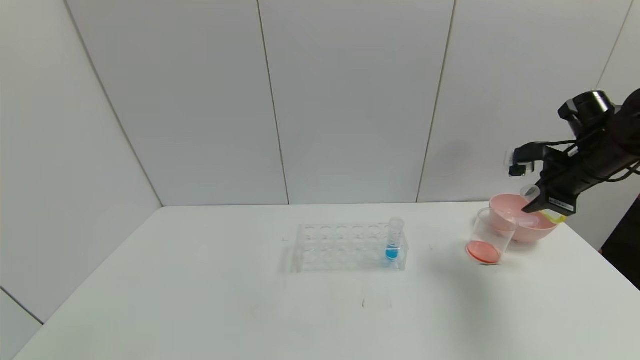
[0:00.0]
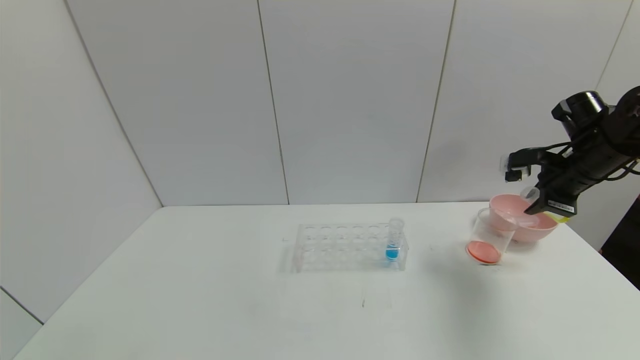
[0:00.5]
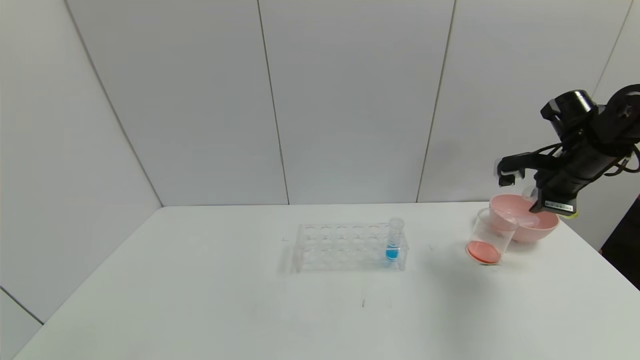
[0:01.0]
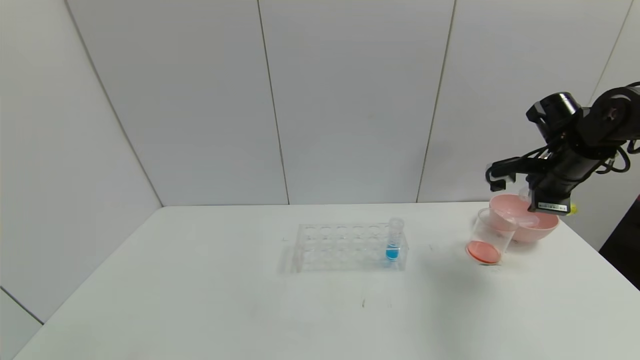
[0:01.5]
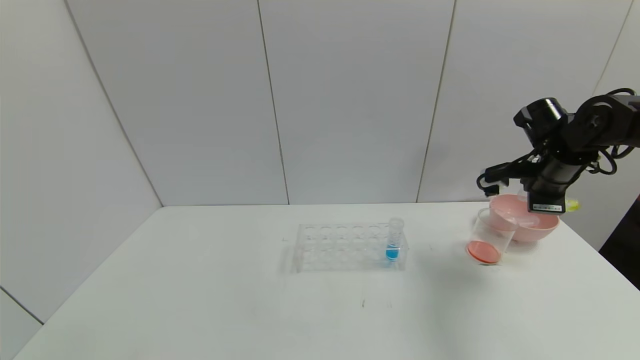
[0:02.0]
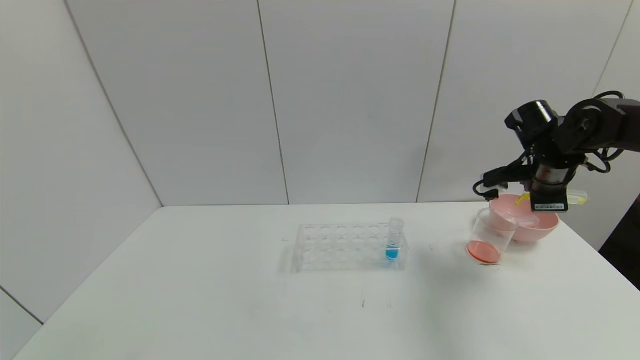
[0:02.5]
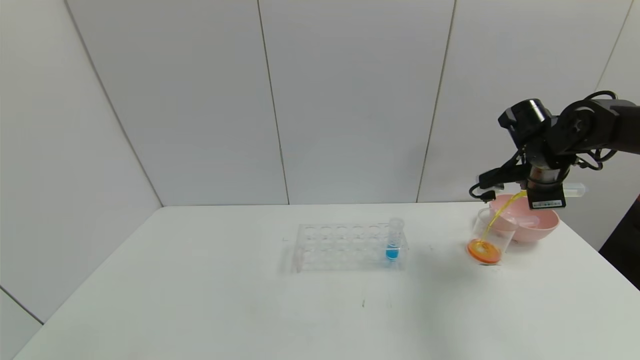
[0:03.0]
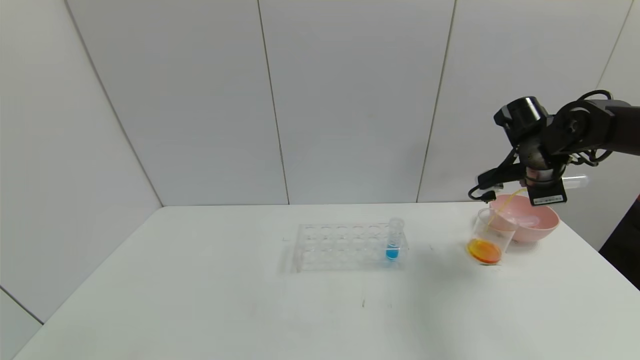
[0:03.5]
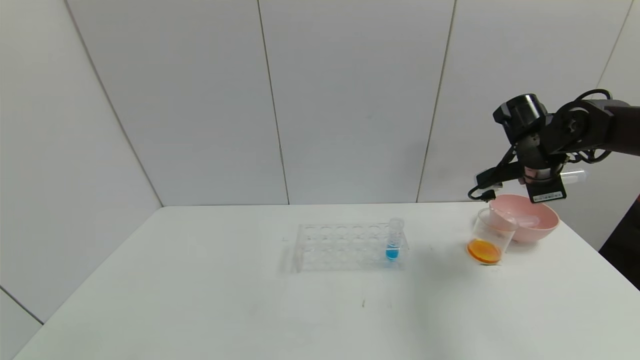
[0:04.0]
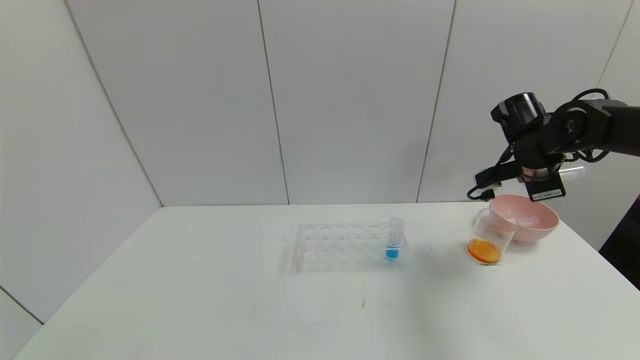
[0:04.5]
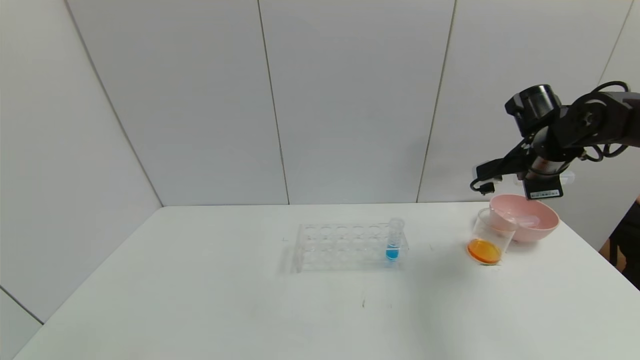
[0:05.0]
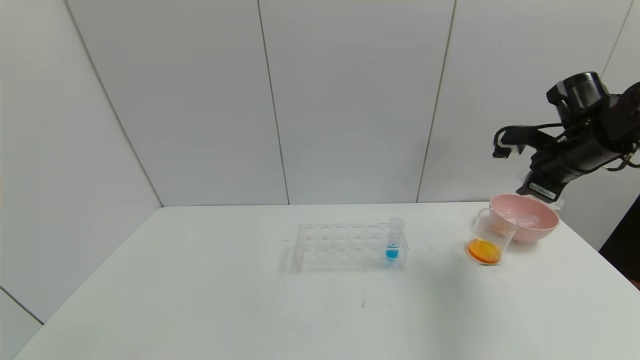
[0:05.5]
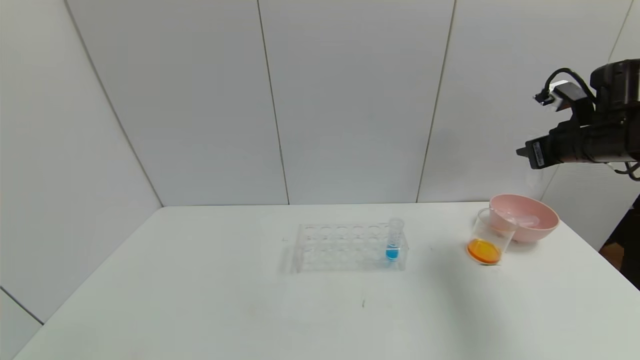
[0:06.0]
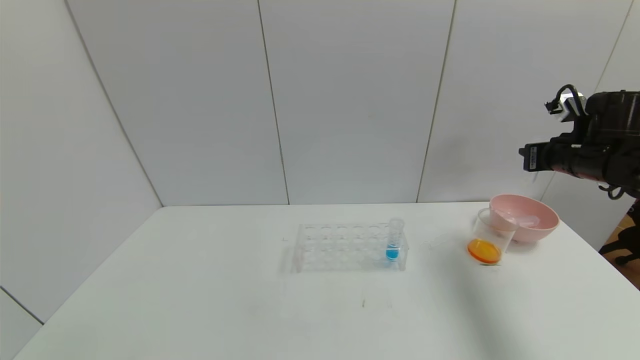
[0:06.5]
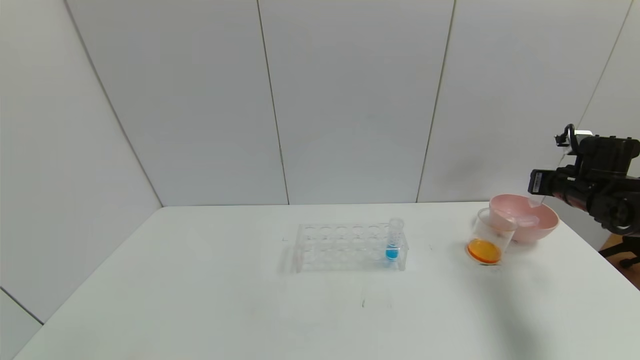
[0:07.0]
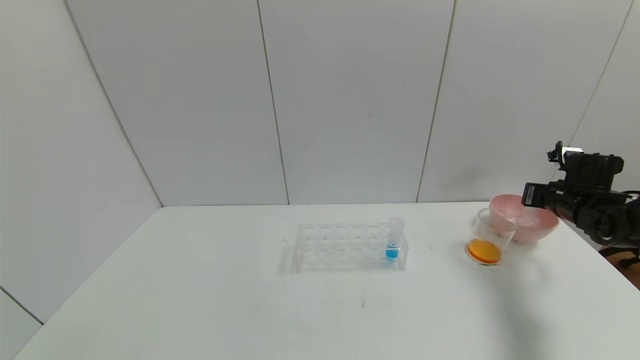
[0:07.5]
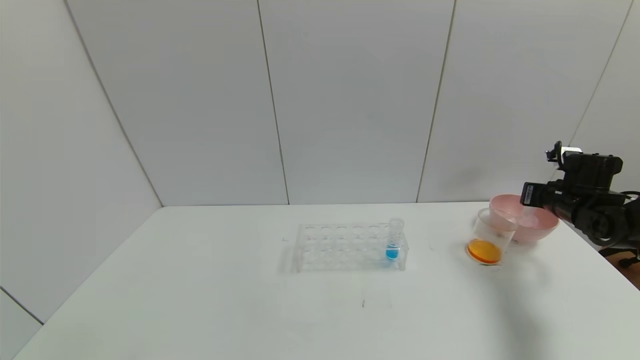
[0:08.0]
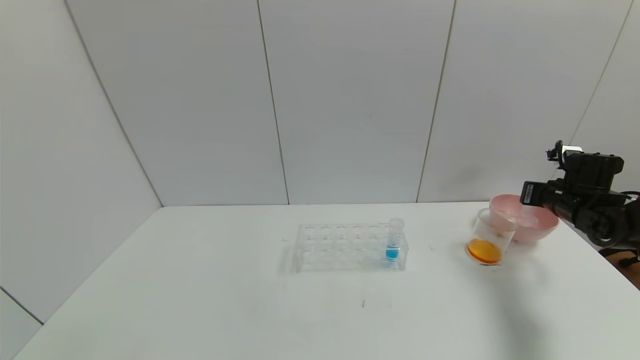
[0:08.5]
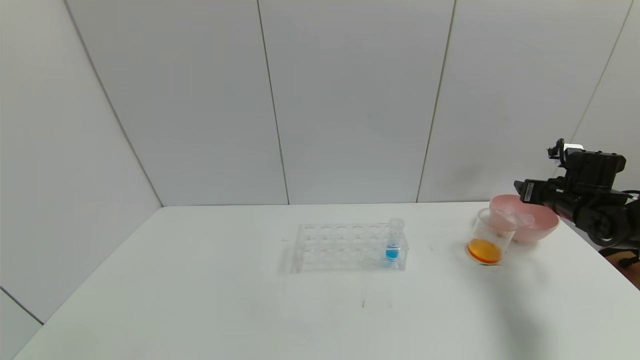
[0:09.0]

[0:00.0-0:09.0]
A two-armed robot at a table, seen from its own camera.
Task of the whole recording: pick up the test tube with yellow pigment and the test tube with red pigment by grippers and pour them into the beaker.
Step, 0:00.0 to 0:04.0: Pour the yellow reagent into the graduated cylinder with the right gripper.
Step, 0:04.5 to 0:08.5: Place the test tube into the bowl with the right gripper.
0:04.5 to 0:07.0: The right gripper moves to the right and downward, some 15 cm.
0:07.0 to 0:09.0: The right gripper opens.

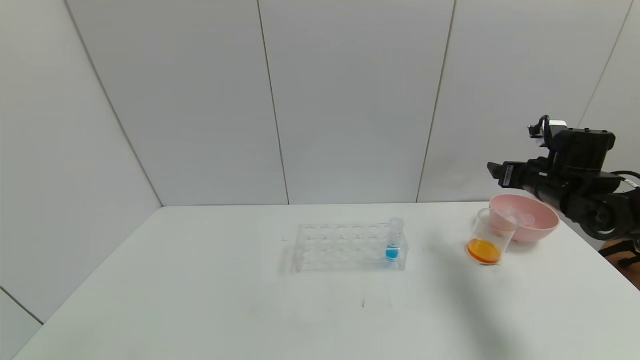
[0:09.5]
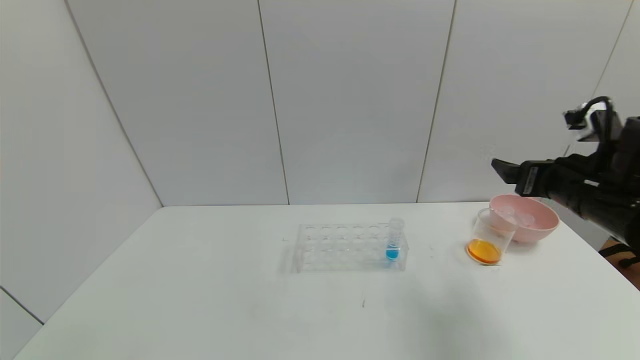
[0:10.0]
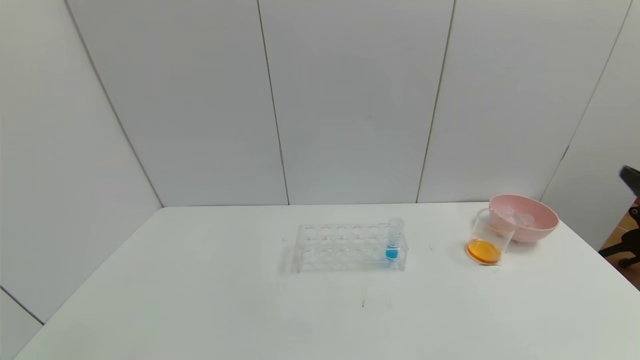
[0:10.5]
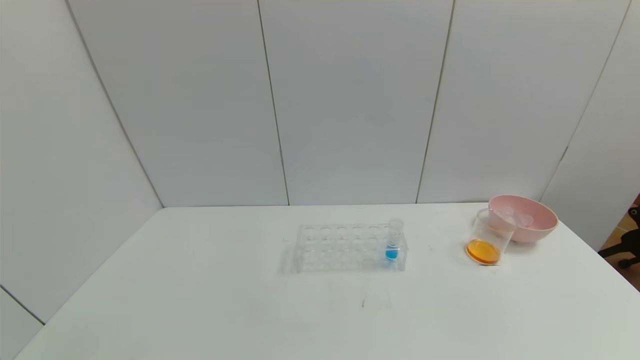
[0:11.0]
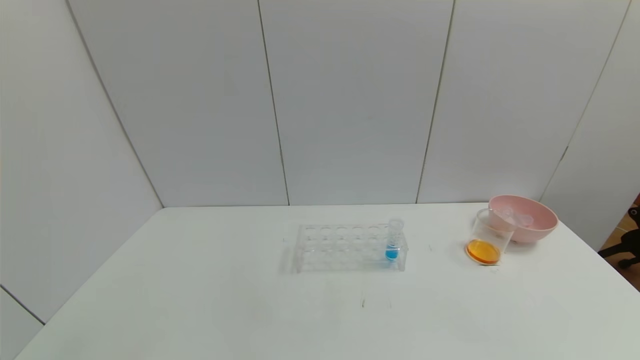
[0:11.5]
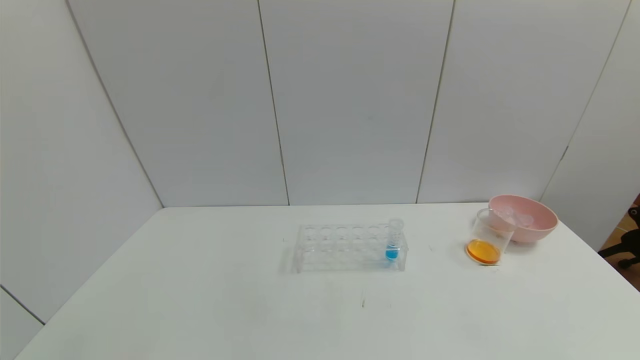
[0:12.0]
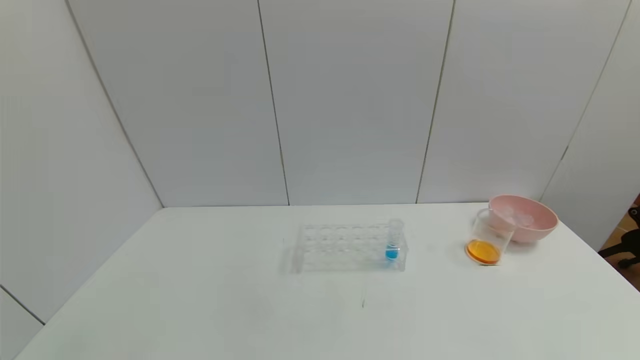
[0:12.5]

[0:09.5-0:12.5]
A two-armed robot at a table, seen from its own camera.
Task of the whole recording: pick up the test tube with yellow pigment and the test tube with red pigment by grippers and pour them into the beaker.
0:09.5 to 0:11.0: The right gripper shifts roughly 40 cm backward.
